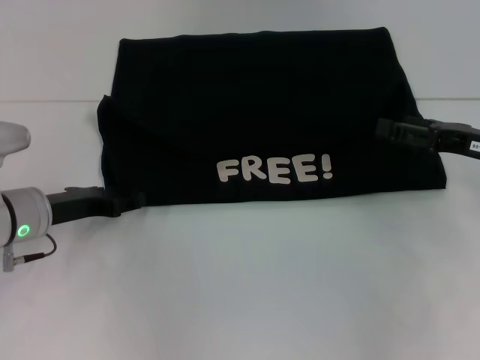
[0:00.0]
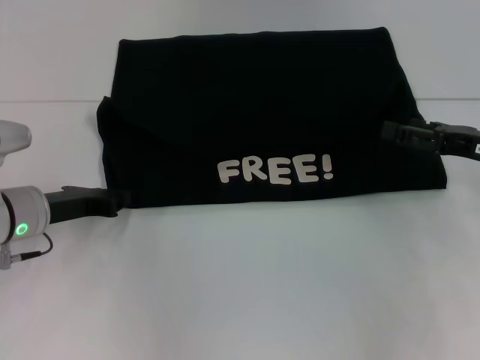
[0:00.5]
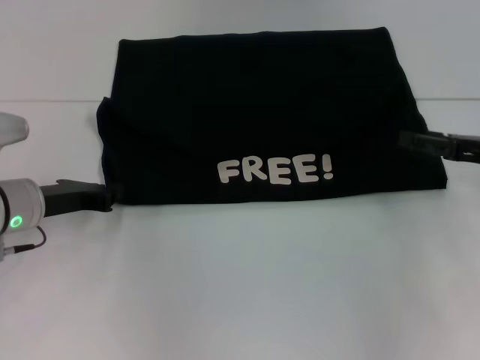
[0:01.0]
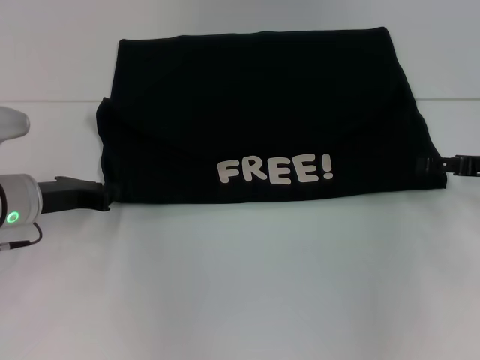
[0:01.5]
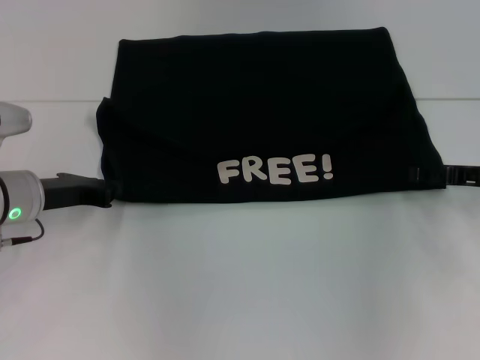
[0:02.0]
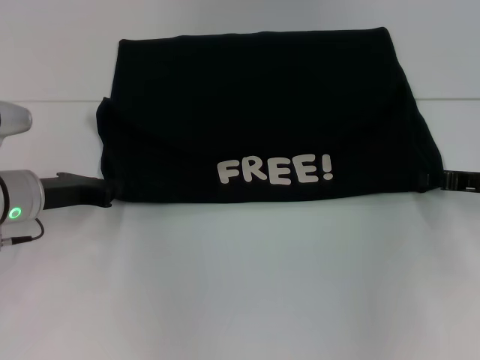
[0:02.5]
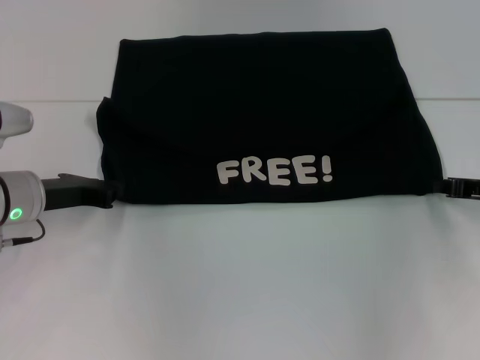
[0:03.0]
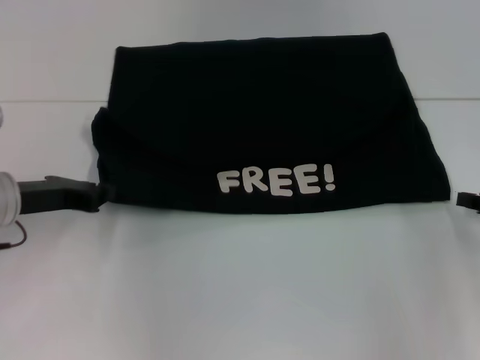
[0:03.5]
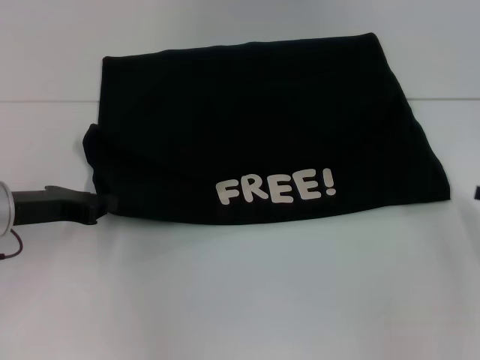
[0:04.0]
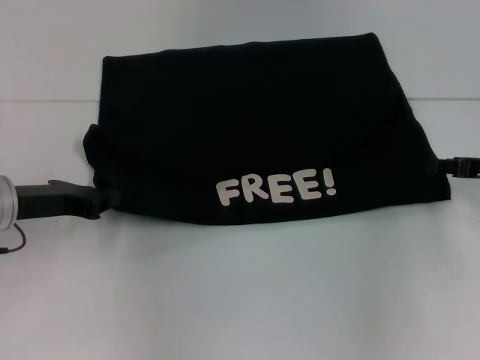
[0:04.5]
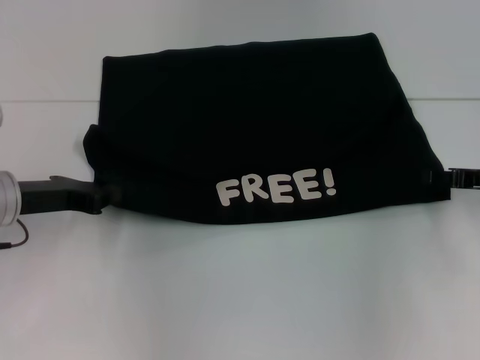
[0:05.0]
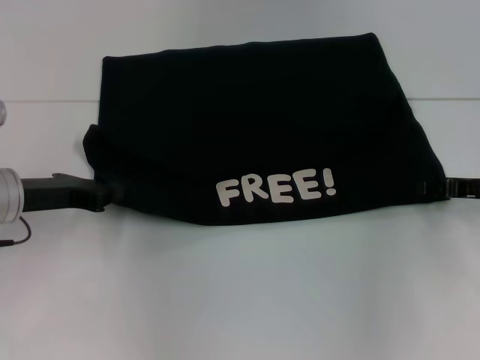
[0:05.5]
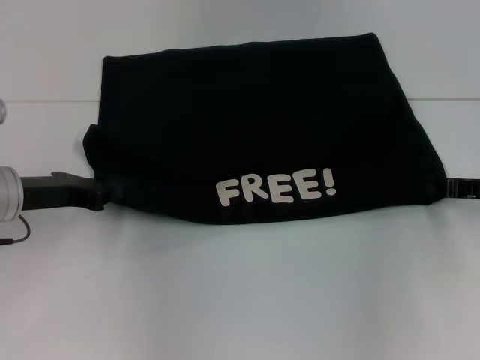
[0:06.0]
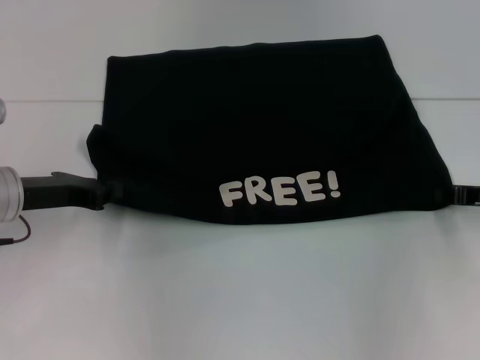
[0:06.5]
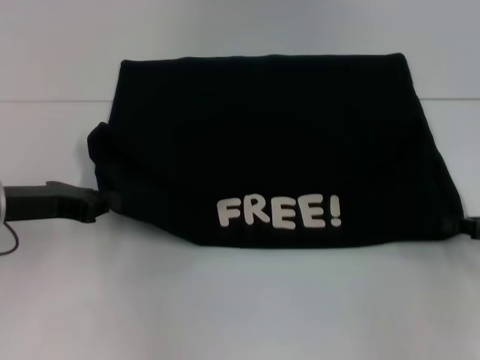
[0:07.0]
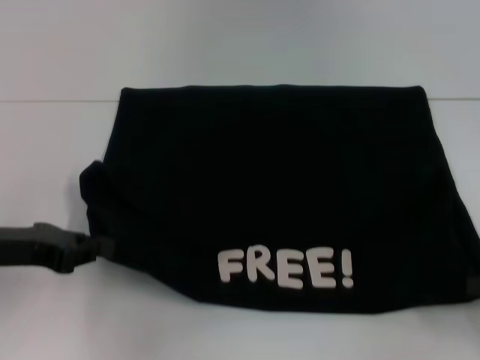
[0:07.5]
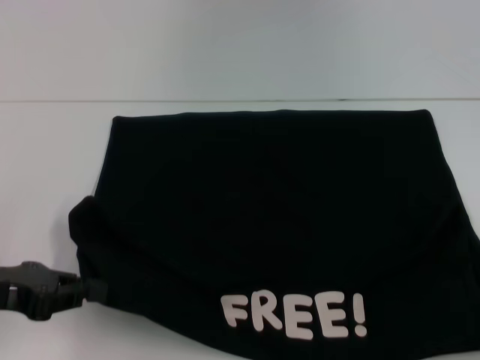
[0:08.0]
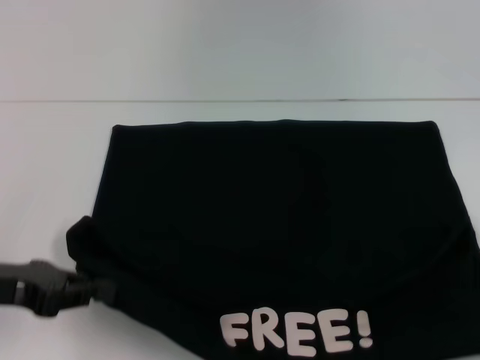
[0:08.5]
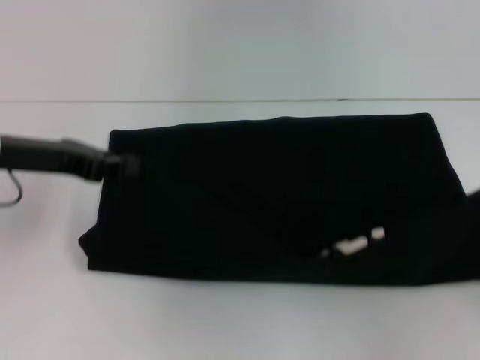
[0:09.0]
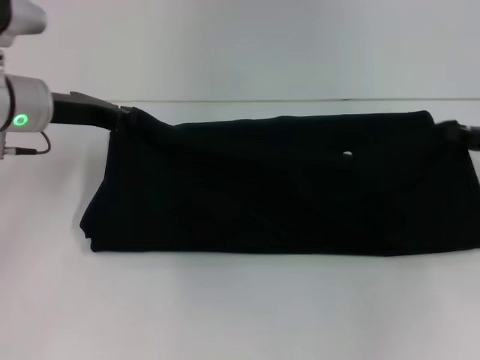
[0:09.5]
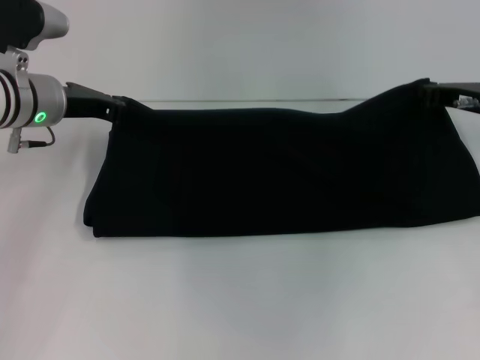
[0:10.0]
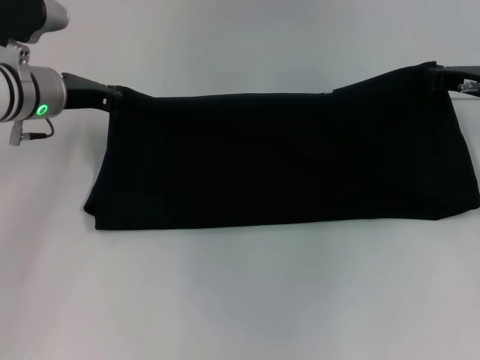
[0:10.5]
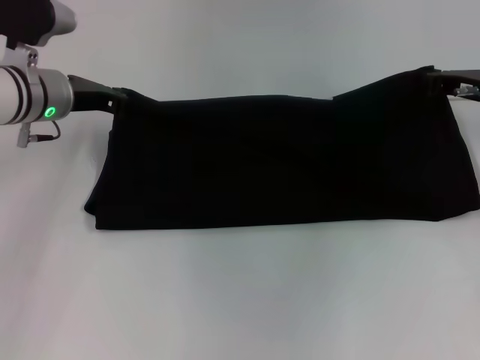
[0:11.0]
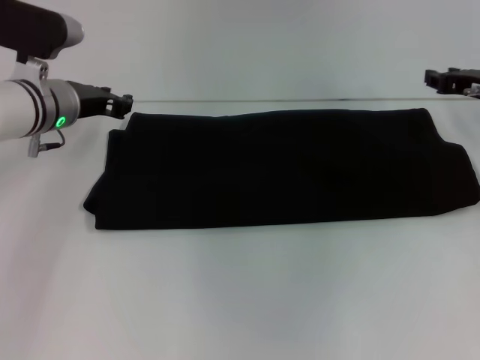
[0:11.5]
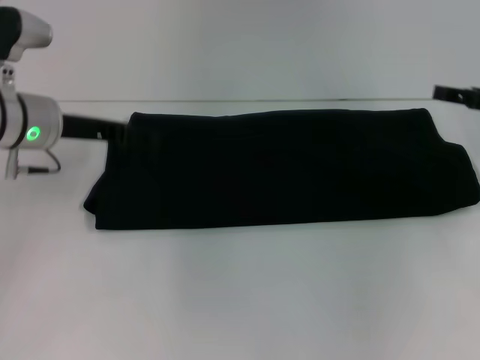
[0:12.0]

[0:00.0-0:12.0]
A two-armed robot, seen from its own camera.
Step, 0:00.0 to 0:08.0: Pull the clothes with your left hand.
Step, 0:00.0 to 0:08.0: Pull the clothes with your right hand.
Step, 0:08.5 to 0:11.5: Fold the clothes with your right hand.
0:00.0 to 0:02.0: The left gripper closes its fingers.
0:02.0 to 0:04.0: The right gripper travels backward and to the right by approximately 10 cm, and closes its fingers.
0:04.0 to 0:06.0: The right gripper goes approximately 10 cm to the left and forward.
0:06.0 to 0:08.0: The right gripper moves backward and to the right, some 20 cm; the left gripper shifts about 10 cm backward.
0:08.0 to 0:10.0: The right gripper travels forward and to the left by some 25 cm. The left gripper heads forward, covering some 20 cm.
0:10.0 to 0:12.0: The left gripper opens up. Meanwhile the right gripper is displaced to the right by roughly 5 cm, and opens.

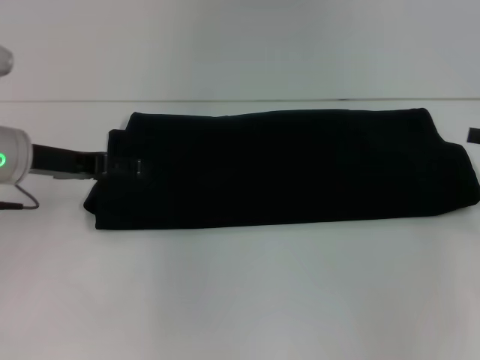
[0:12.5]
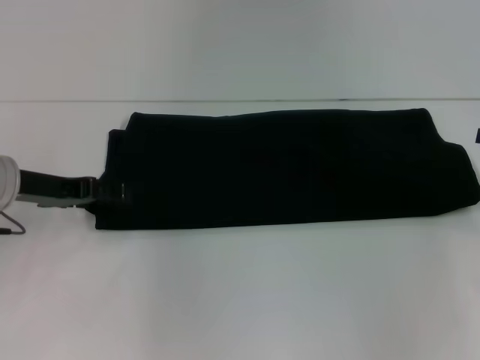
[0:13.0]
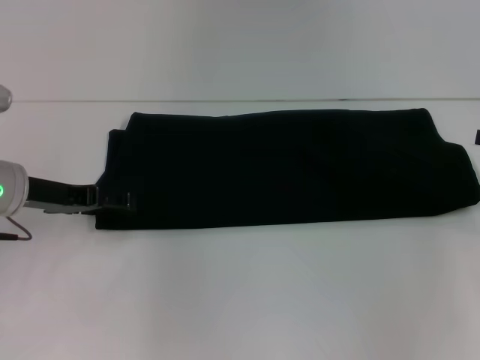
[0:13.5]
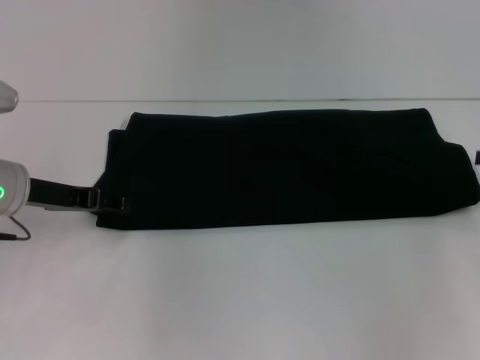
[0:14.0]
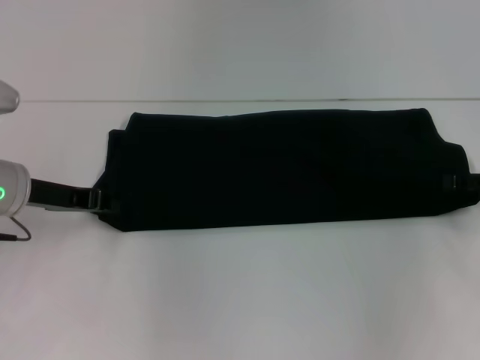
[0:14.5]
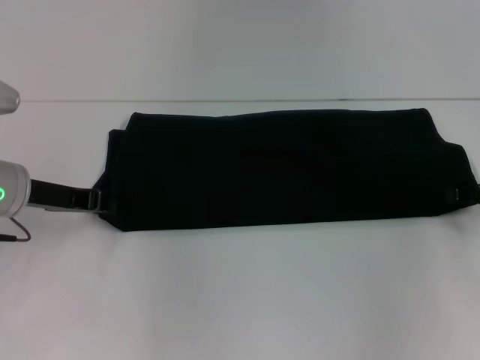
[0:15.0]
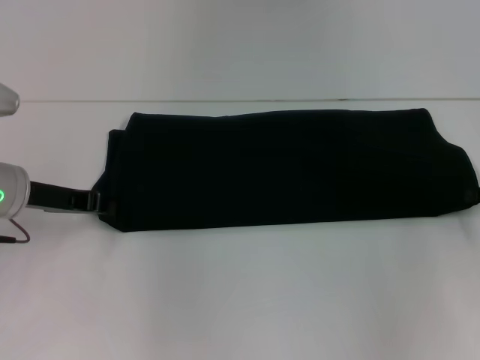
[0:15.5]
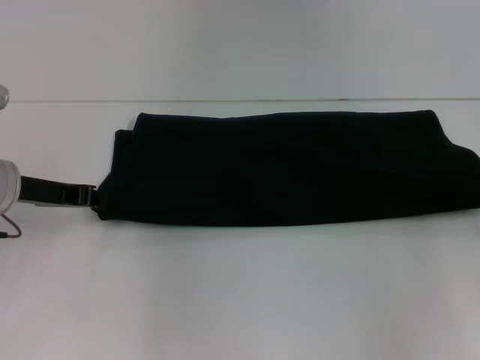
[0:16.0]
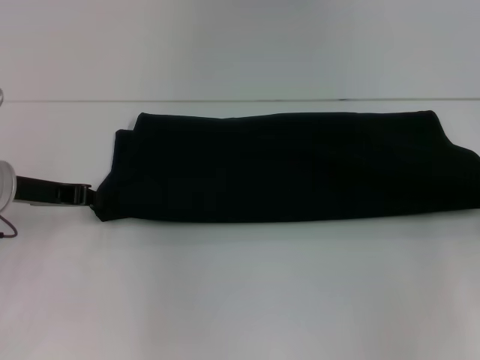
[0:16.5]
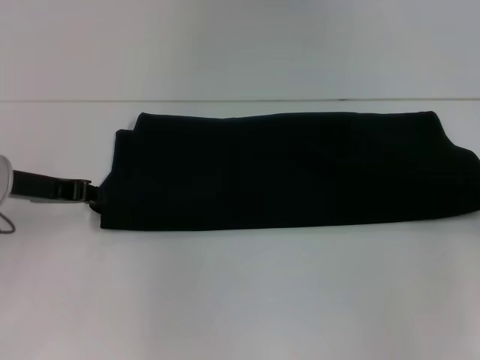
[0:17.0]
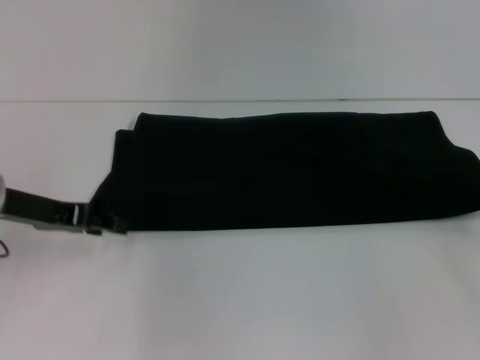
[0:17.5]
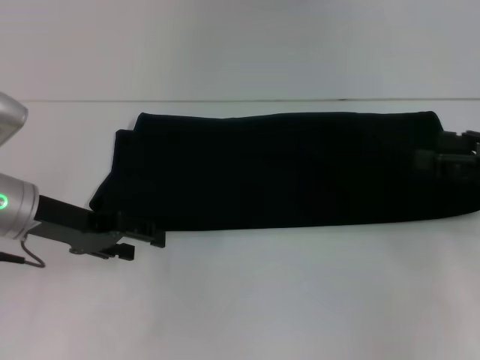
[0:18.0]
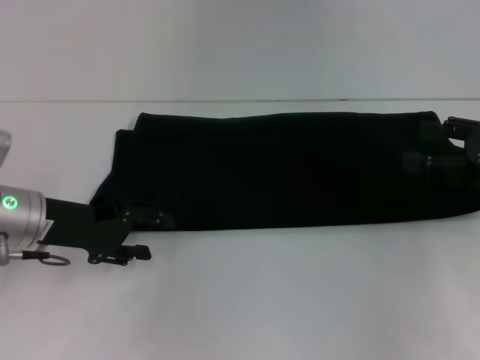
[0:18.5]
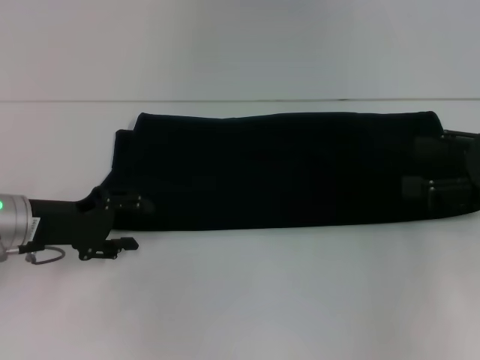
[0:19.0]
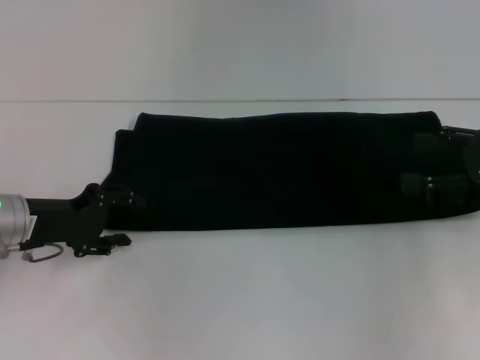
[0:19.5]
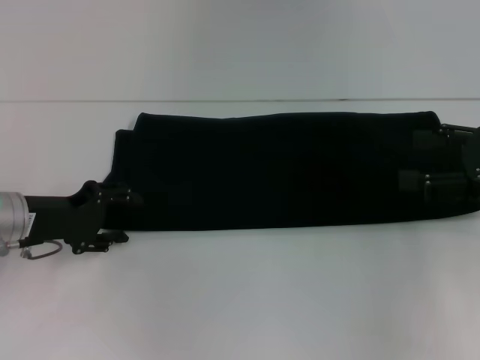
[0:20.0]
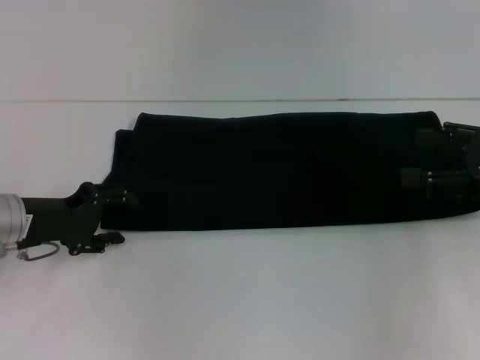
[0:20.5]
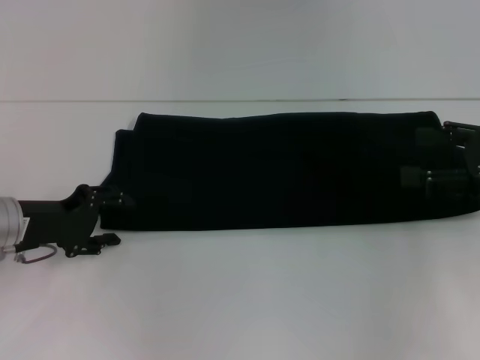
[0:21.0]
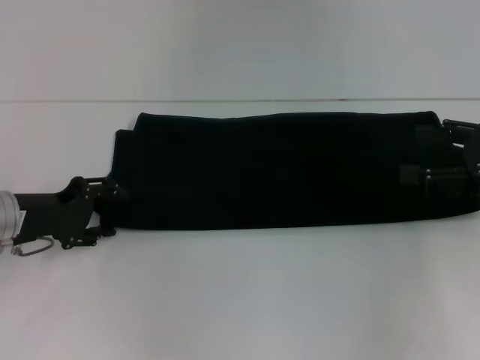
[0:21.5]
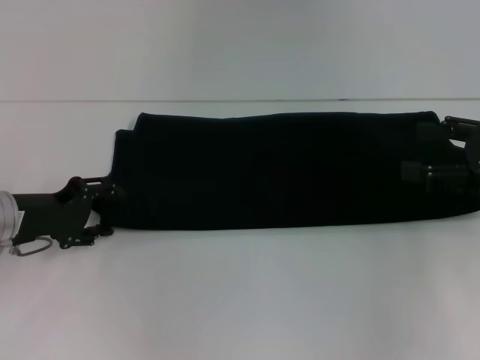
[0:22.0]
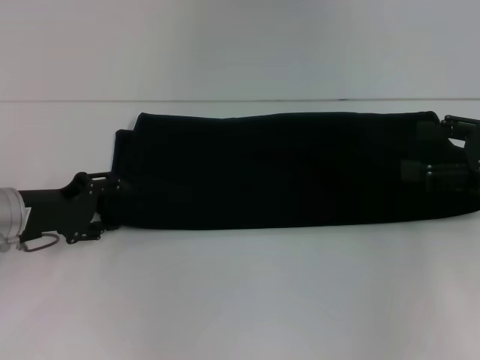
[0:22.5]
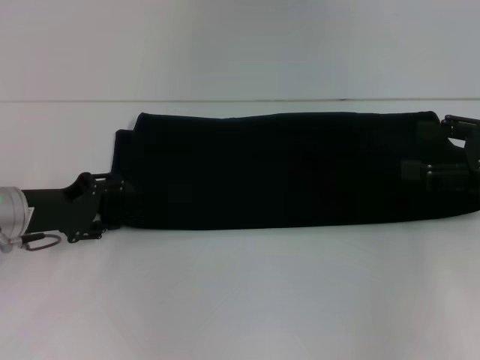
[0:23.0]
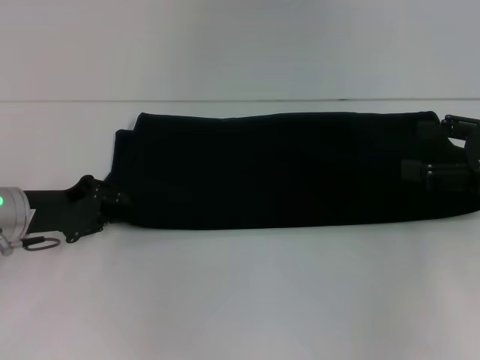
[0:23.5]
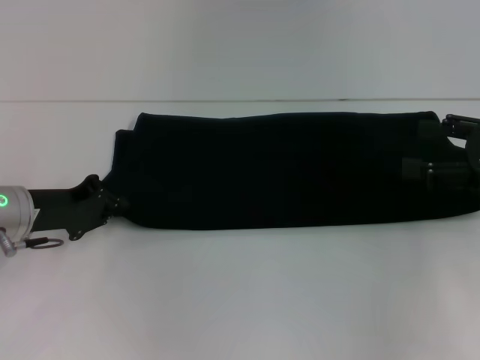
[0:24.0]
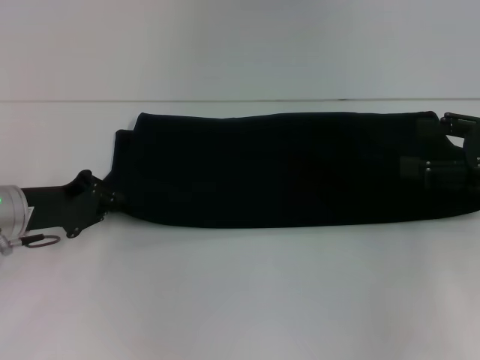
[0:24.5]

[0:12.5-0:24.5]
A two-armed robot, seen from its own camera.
0:12.5 to 0:14.5: The left gripper closes its fingers.
0:14.5 to 0:16.5: The right gripper closes its fingers.
0:16.5 to 0:18.5: The right gripper heads upward and to the left, covering roughly 10 cm, and opens its fingers. Meanwhile the left gripper opens up.
0:18.5 to 0:20.5: The grippers move only a little.
0:20.5 to 0:22.5: Neither gripper changes place.
0:22.5 to 0:24.5: The left gripper closes up.

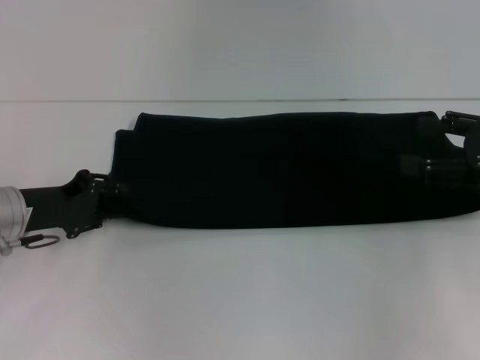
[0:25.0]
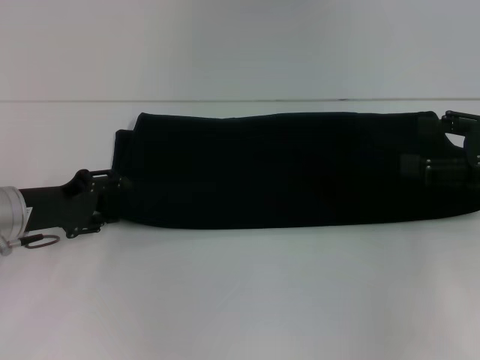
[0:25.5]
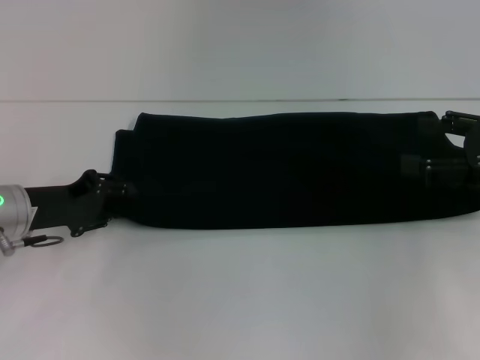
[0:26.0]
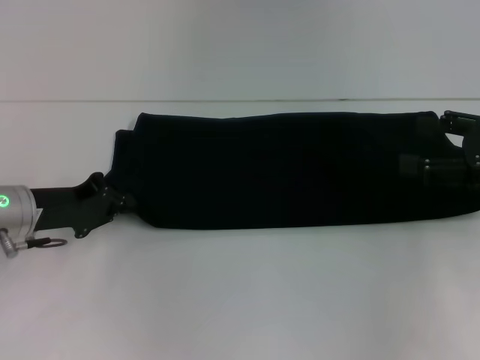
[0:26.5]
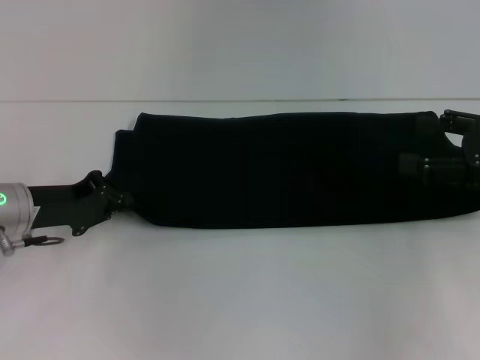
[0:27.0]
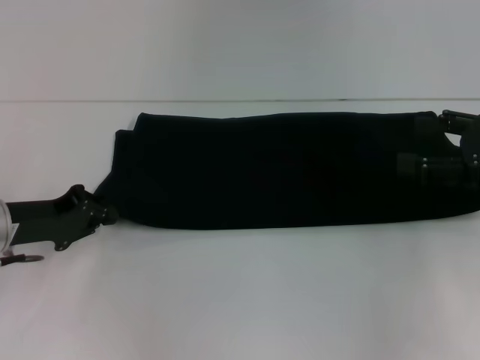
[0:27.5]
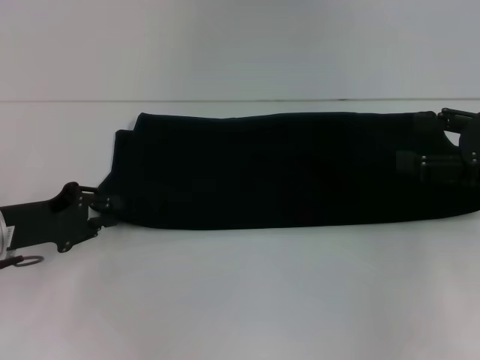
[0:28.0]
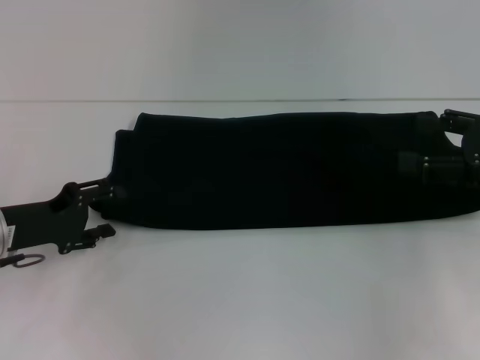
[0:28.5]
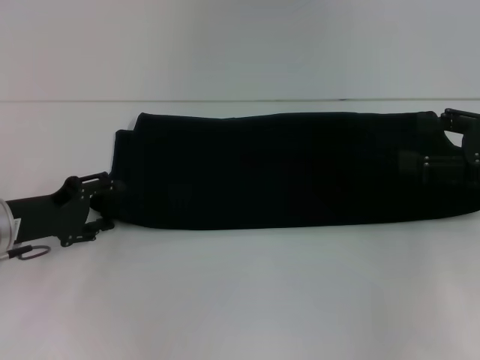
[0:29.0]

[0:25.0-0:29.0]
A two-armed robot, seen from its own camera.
0:25.0 to 0:27.0: The left gripper opens and closes again.
0:27.0 to 0:29.0: The left gripper opens its fingers.
